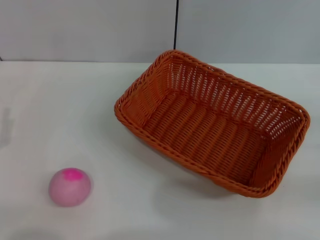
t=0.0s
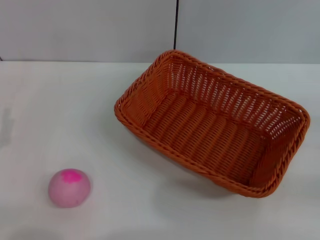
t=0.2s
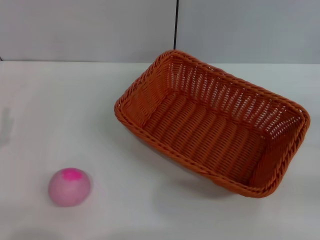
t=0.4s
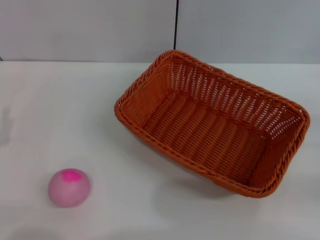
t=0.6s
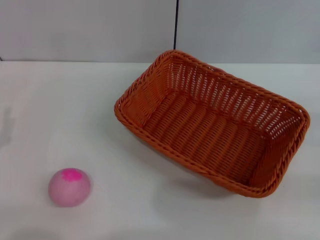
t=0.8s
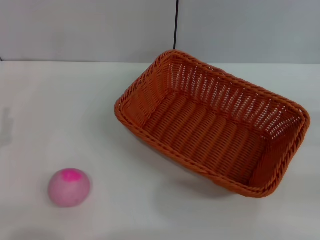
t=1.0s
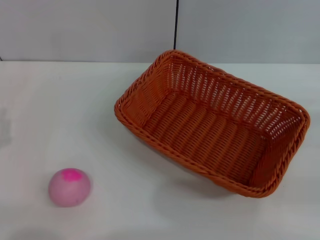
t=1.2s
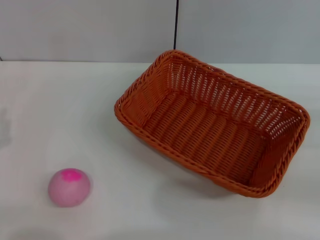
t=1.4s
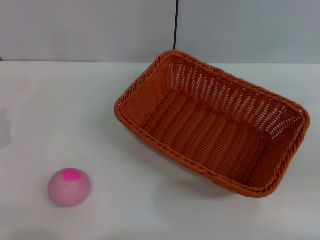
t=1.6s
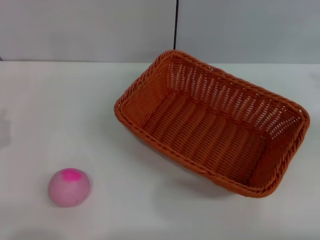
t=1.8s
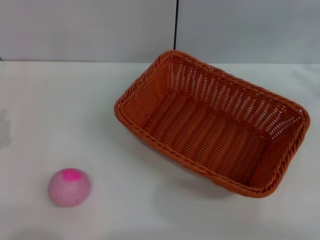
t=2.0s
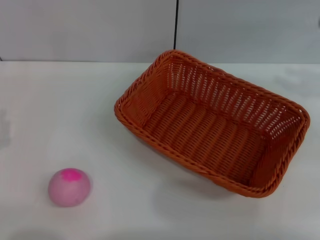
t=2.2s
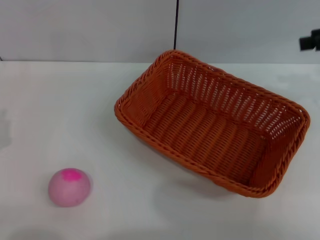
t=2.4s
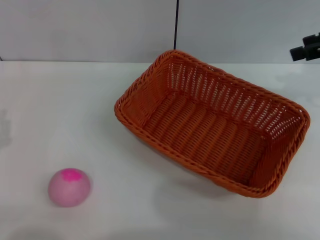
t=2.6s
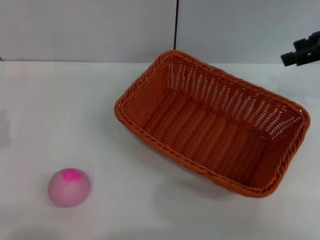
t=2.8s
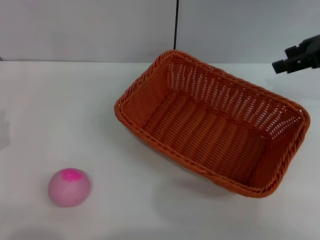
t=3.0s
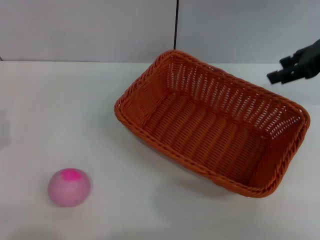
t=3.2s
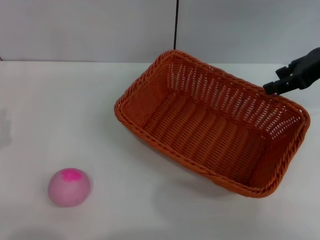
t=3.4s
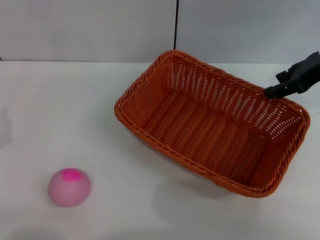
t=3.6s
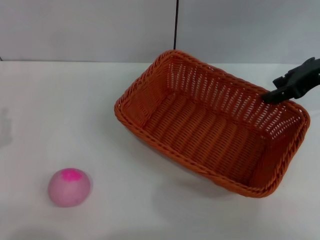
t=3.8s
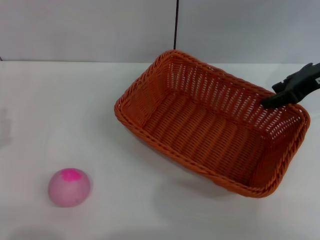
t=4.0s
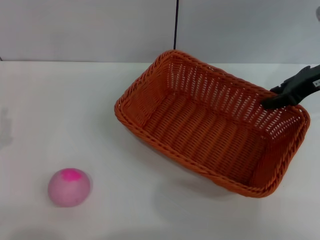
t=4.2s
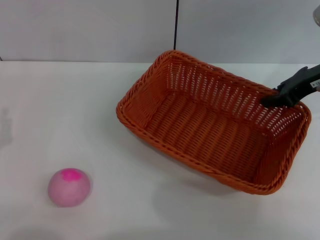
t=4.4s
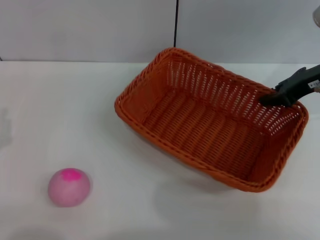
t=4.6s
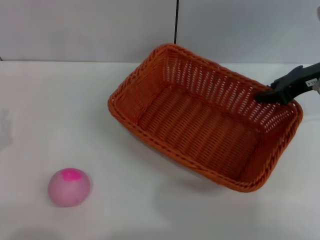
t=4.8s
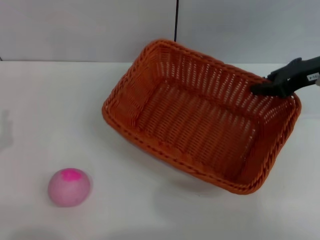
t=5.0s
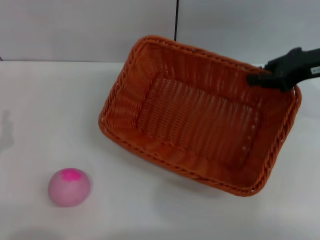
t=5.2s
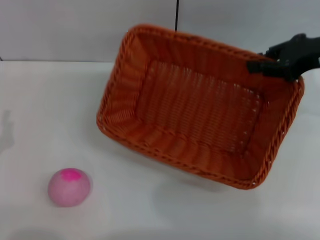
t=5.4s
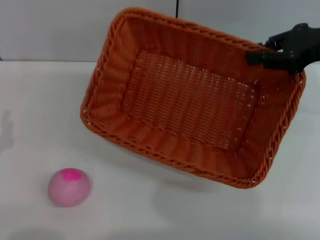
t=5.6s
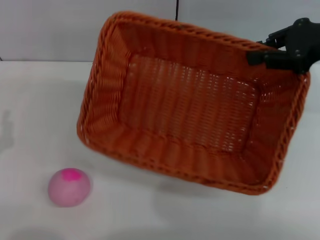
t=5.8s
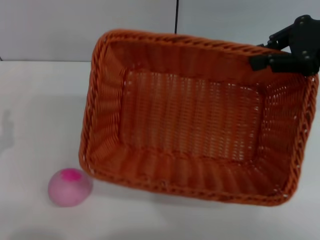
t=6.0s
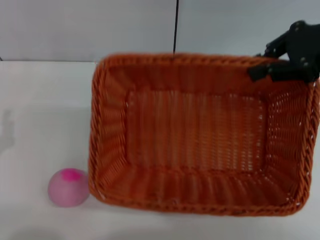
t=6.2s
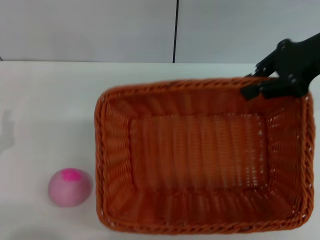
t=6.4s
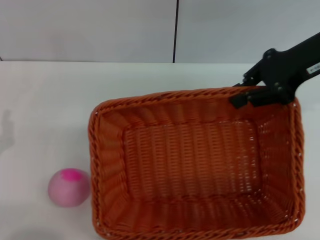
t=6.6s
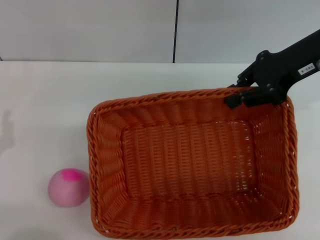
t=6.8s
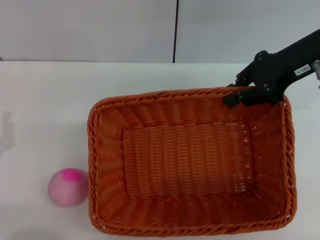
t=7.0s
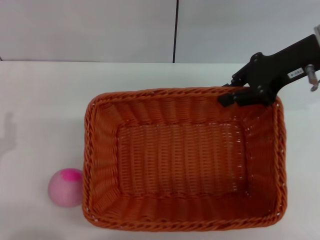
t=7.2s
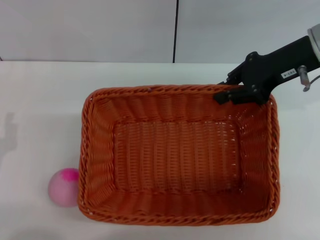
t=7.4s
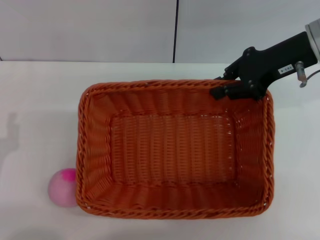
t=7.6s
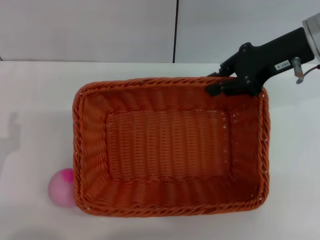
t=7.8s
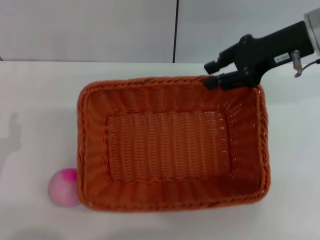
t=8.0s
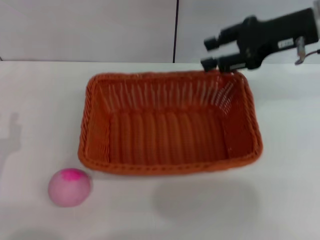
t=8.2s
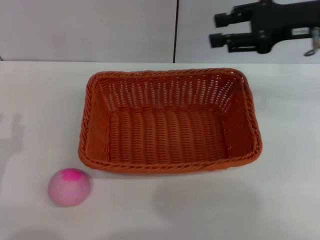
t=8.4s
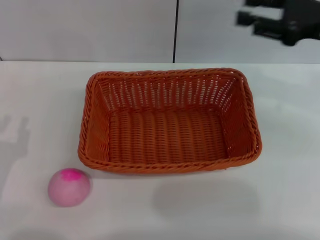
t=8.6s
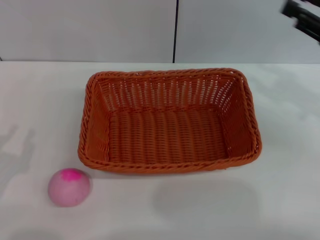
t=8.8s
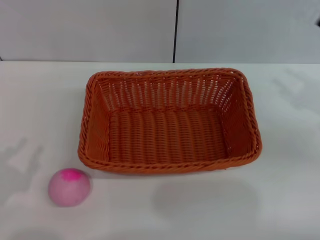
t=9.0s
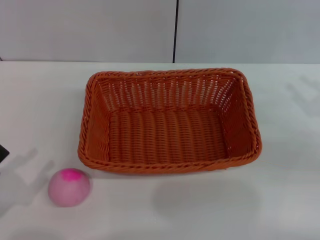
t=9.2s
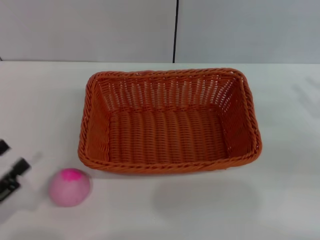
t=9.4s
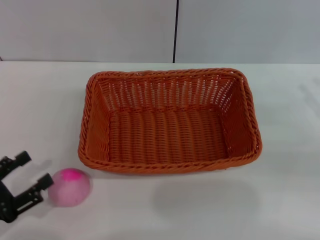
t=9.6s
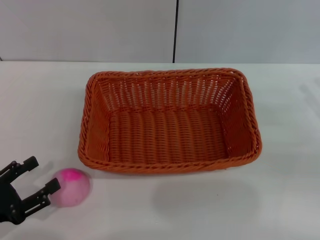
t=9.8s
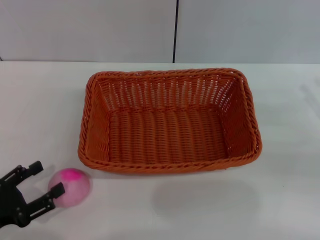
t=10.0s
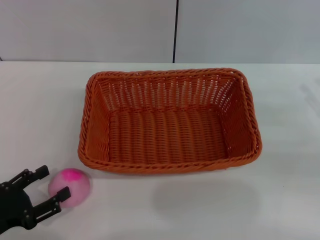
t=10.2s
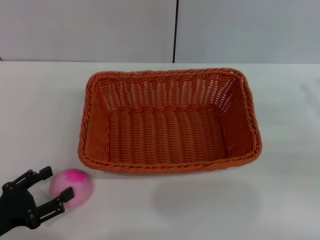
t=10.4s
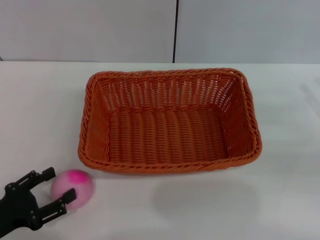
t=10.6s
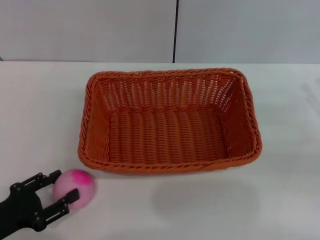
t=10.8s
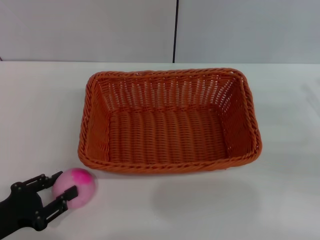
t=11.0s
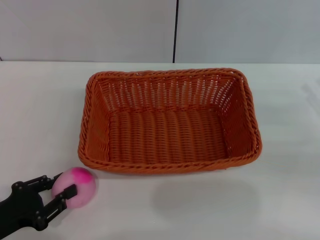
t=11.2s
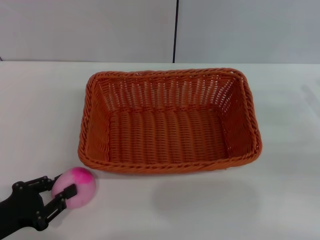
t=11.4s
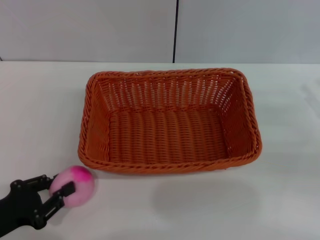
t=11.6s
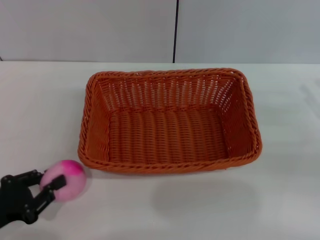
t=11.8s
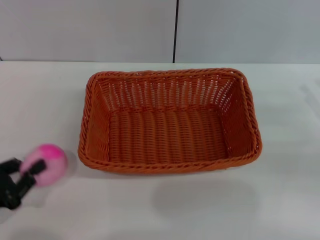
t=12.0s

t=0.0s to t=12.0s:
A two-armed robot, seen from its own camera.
Step, t=0.0s to t=5.2s: Pick up the light basket with the right gripper.
Step, t=5.4s to t=8.4s: Place the light basket in the center of view with the right gripper.
t=1.6s to t=3.0s: The right gripper goes roughly 20 cm forward, to the left and upward.
t=3.0s to t=4.4s: The right gripper is displaced downward by some 5 cm, and closes its fingers.
t=4.4s to t=6.0s: The right gripper heads upward, covering approximately 10 cm, and closes its fingers.
t=6.0s to t=7.6s: The right gripper goes some 10 cm to the left and downward.
t=7.6s to t=9.0s: The left gripper ends up approximately 5 cm from where it was; the right gripper is displaced to the right, backward and downward by about 20 cm, and opens.
t=9.0s to t=10.4s: The left gripper ends up about 5 cm from where it was, and opens its fingers.
t=10.4s to t=12.0s: The left gripper closes up.

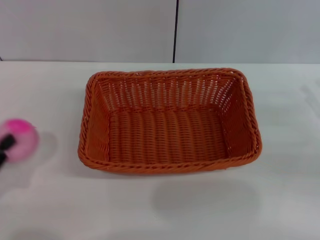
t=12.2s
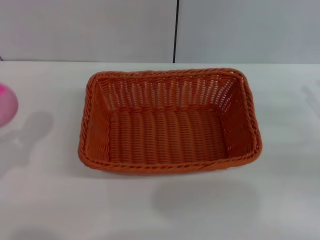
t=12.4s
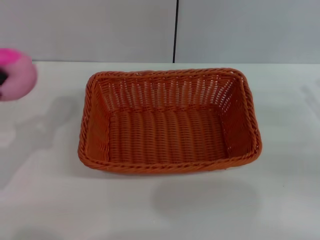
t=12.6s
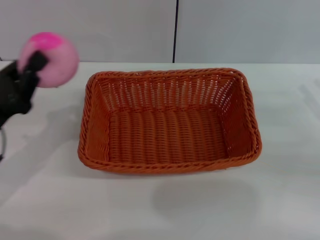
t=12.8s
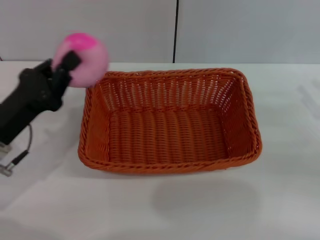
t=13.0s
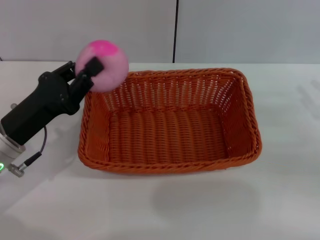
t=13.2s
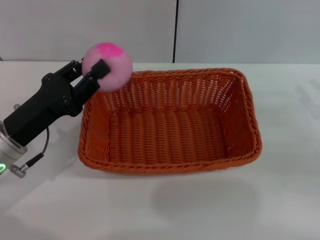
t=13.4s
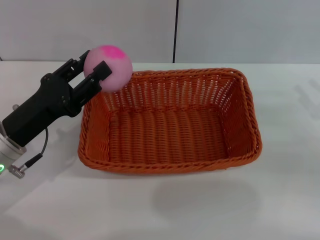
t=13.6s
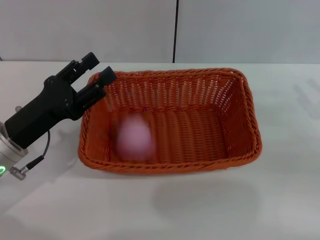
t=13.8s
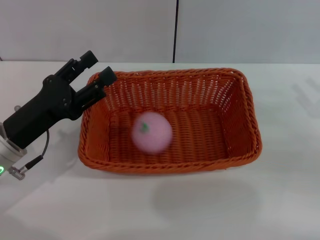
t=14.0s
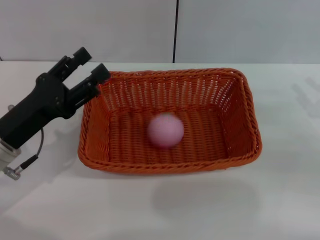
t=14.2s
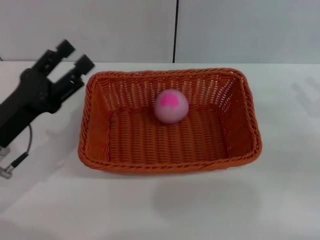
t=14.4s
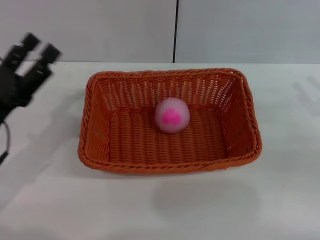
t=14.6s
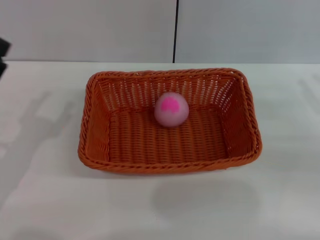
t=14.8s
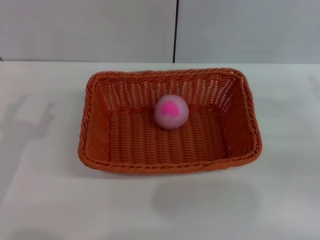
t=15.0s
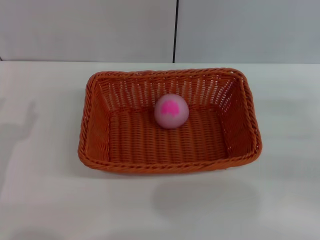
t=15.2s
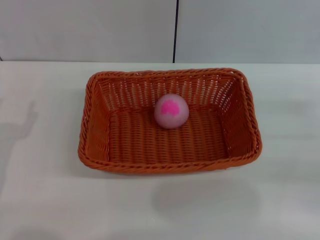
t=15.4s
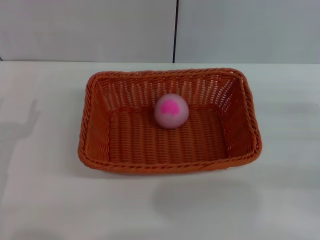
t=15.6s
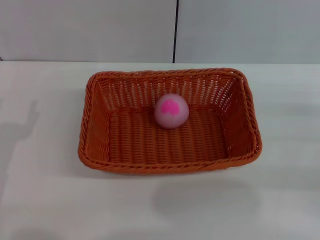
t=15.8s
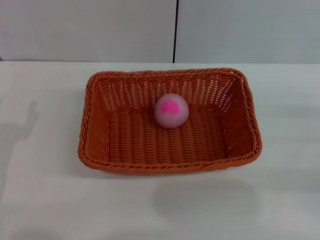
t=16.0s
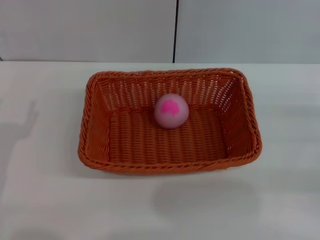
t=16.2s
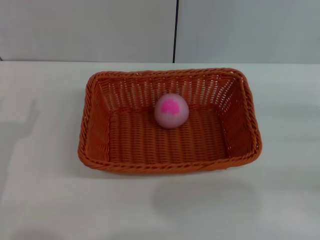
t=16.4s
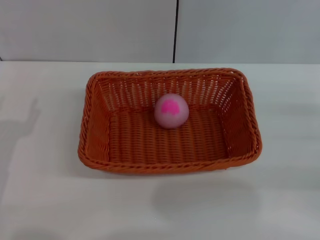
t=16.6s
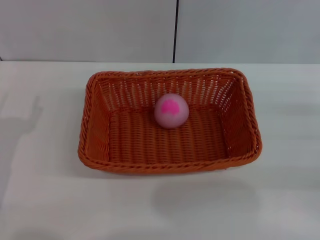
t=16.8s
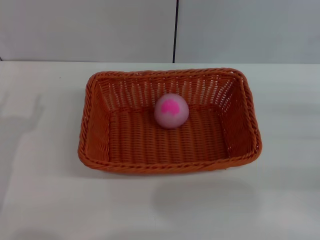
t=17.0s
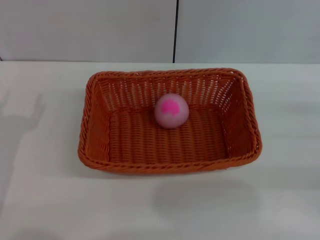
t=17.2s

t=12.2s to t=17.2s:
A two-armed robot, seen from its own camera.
Step, t=13.0s to t=14.0s: Place the peach into the basket with the left gripper.
t=12.2s to t=13.8s: The left gripper goes approximately 15 cm to the right and forward, and opens its fingers.
t=13.8s to t=15.6s: The left gripper is displaced backward and to the left by some 10 cm, and opens up.
